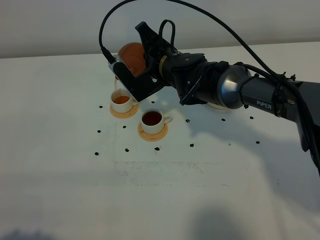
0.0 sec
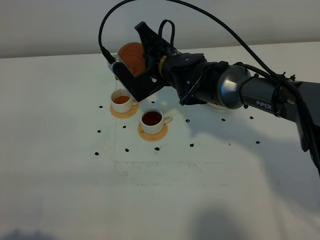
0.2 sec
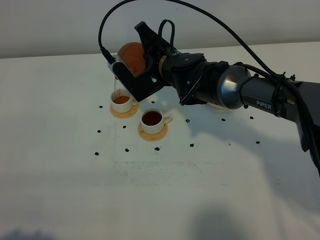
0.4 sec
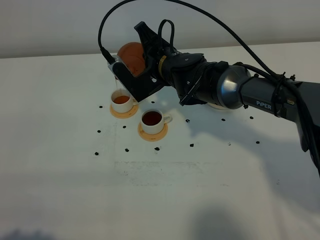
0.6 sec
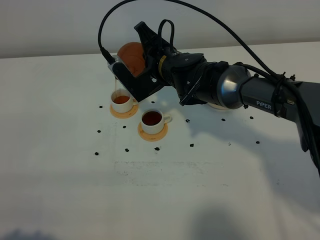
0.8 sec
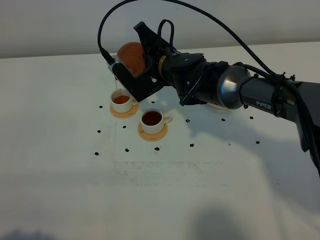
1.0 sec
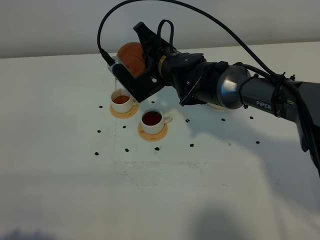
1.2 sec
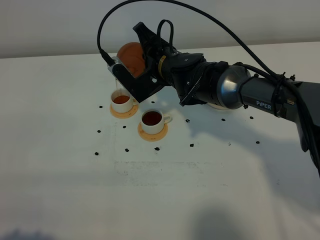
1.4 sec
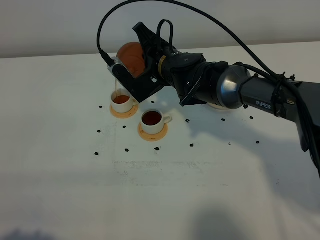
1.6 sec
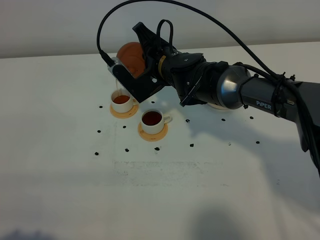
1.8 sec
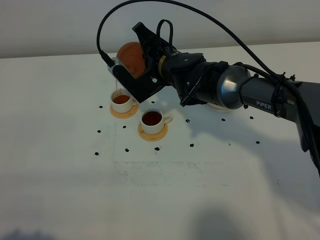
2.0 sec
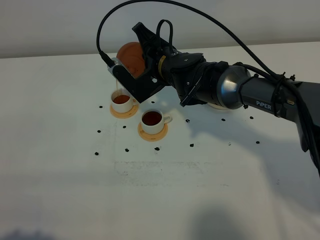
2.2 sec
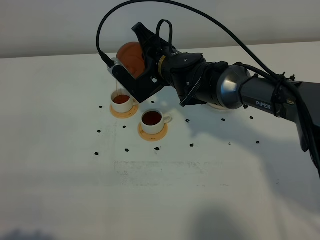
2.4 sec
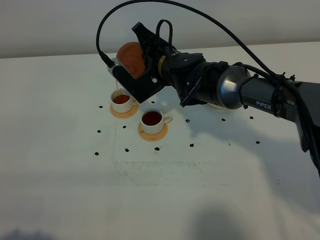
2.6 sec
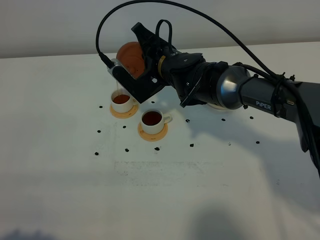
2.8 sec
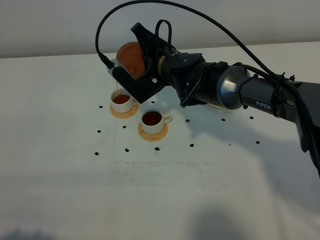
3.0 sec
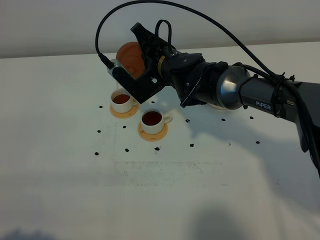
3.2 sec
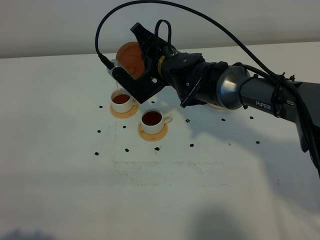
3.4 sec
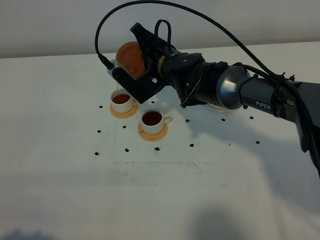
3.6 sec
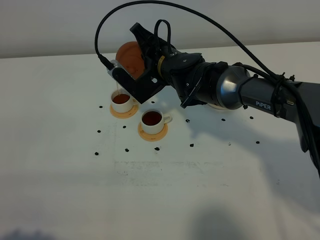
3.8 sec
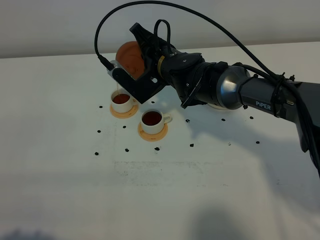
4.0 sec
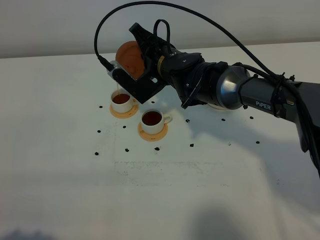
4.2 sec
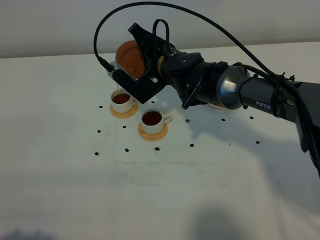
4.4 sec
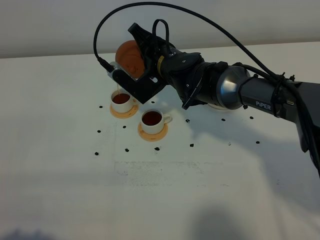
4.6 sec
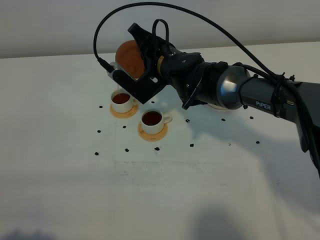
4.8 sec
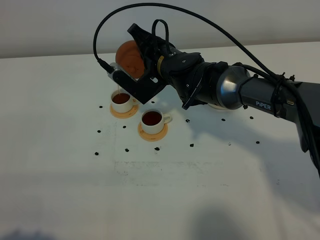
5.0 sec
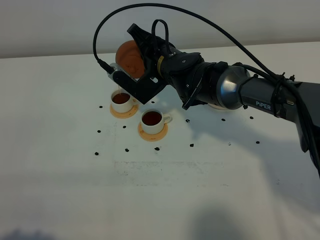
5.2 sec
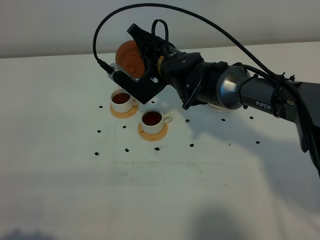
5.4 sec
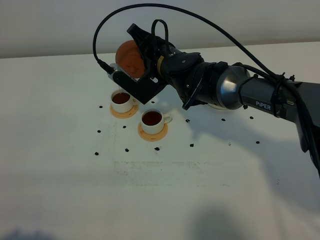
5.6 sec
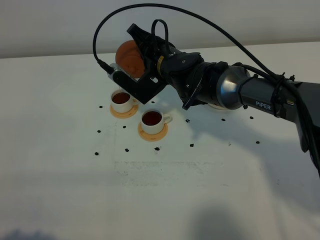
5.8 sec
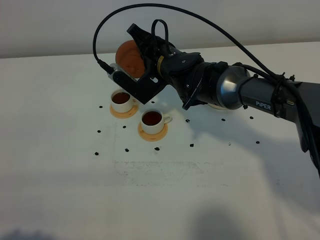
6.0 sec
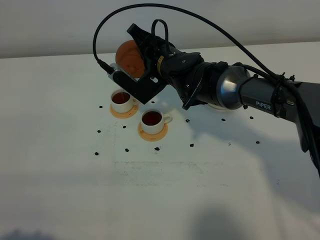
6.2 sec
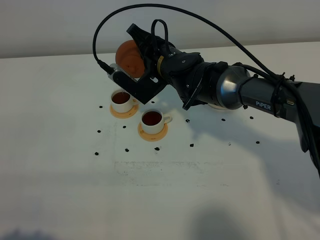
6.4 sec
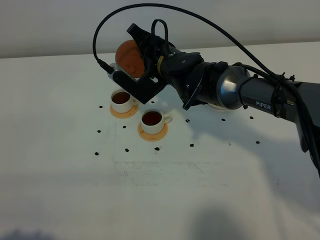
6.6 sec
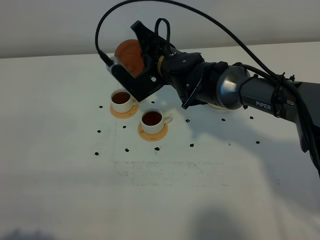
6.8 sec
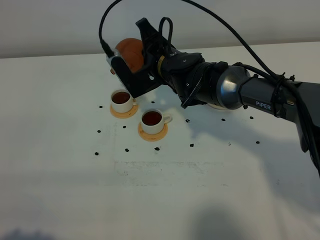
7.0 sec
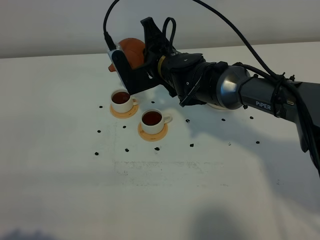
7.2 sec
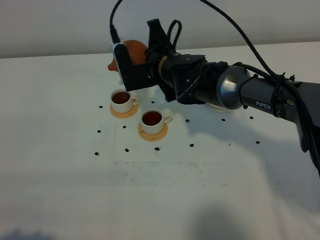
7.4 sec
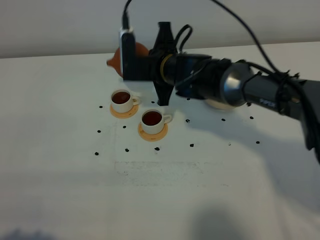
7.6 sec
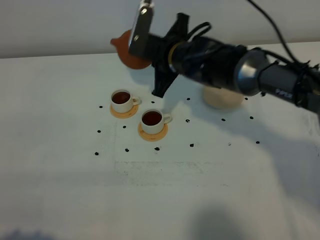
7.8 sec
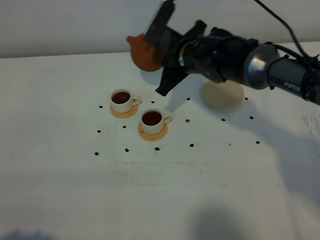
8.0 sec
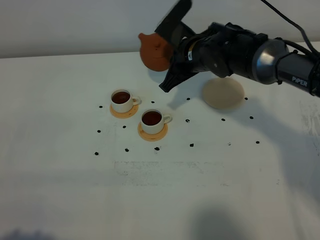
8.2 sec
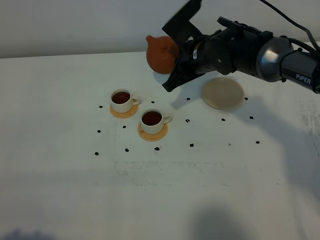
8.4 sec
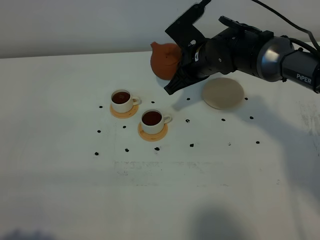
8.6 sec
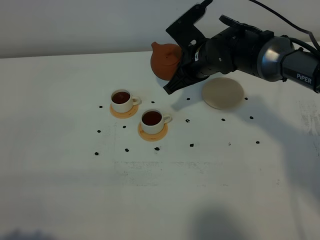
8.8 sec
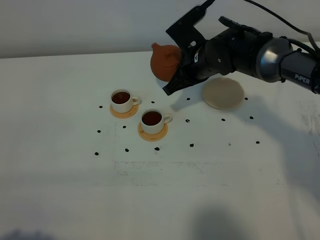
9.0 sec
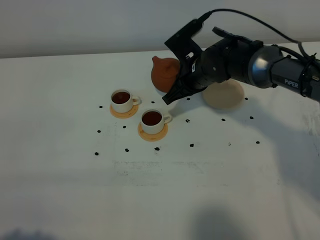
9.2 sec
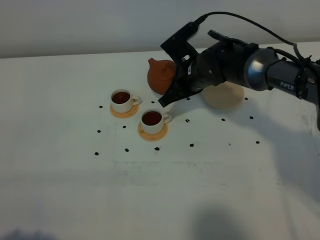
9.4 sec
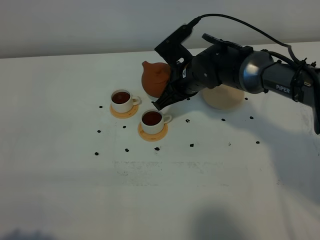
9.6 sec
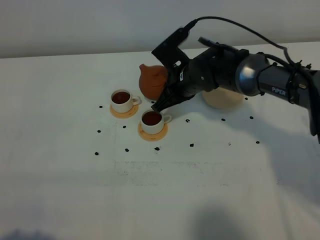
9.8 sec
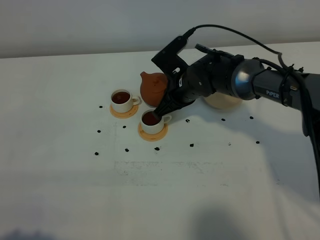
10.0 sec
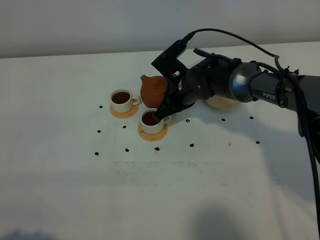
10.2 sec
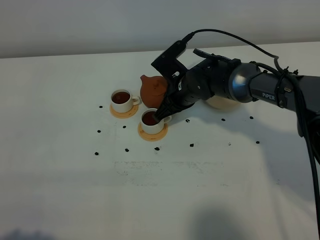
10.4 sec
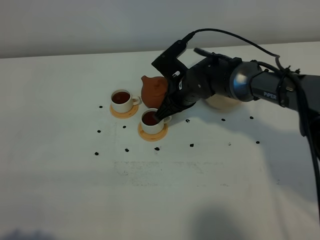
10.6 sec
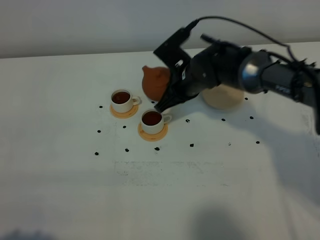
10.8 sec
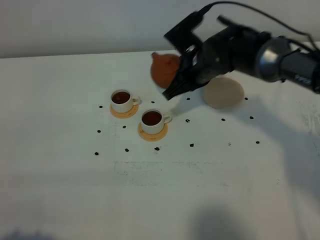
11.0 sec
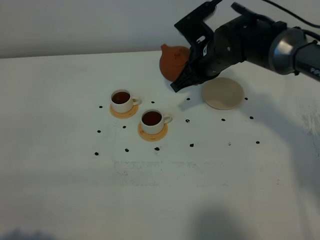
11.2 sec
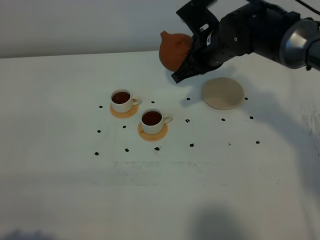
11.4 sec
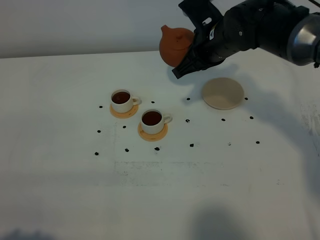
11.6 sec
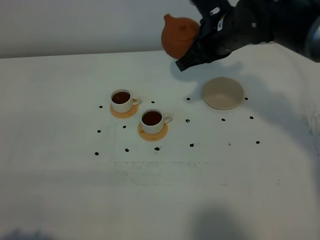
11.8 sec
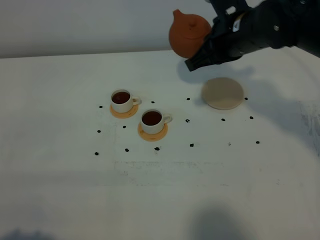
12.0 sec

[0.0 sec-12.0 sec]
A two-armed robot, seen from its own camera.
Task of the whole recording: grasp the brown teapot and pour the tea into the two white teacups one by one, put the brown teapot back in its original place.
Step, 0.0 sec to 7.6 sec: Pour tea into the teacup with the right gripper.
0.0 sec to 1.6 sec: The two grippers keep their place.
1.6 sec to 3.0 sec: Neither gripper changes place.
3.0 sec to 4.4 sec: The two grippers keep their place.
4.4 sec to 6.0 sec: Both grippers stay put.
7.6 sec to 9.0 sec: The right gripper heads to the right, covering some 5 cm.
9.0 sec to 10.4 sec: The right gripper is displaced downward by some 5 cm.
10.4 sec to 12.0 sec: The right gripper moves upward and to the right, about 20 cm.

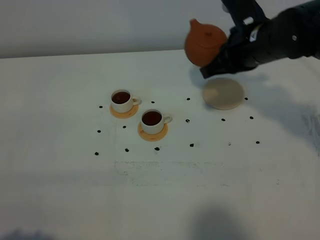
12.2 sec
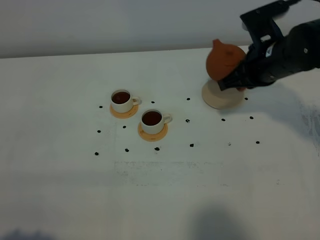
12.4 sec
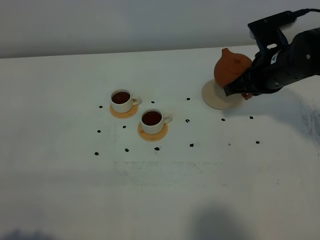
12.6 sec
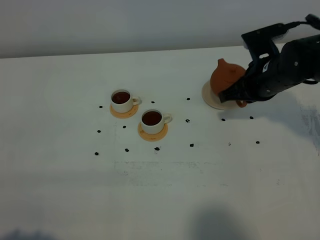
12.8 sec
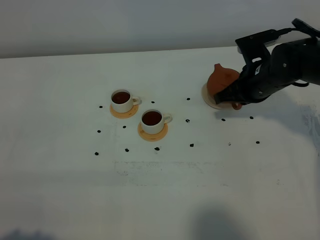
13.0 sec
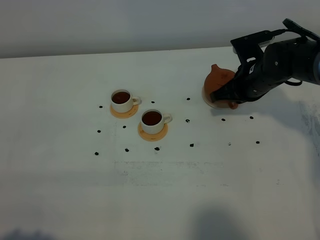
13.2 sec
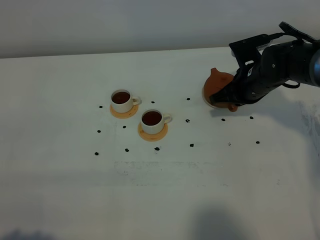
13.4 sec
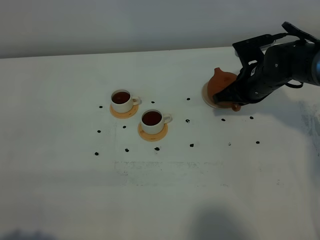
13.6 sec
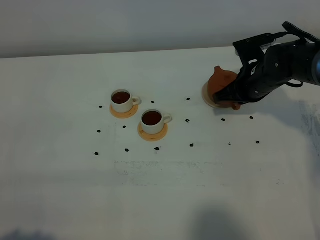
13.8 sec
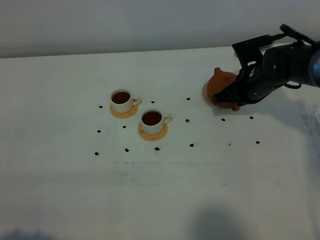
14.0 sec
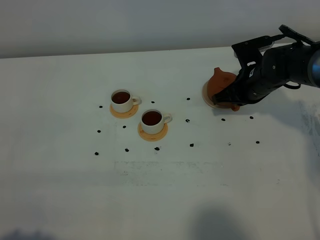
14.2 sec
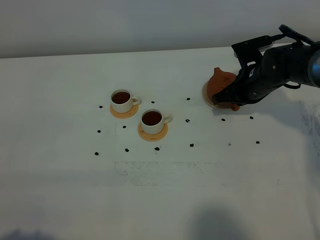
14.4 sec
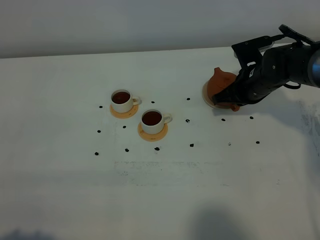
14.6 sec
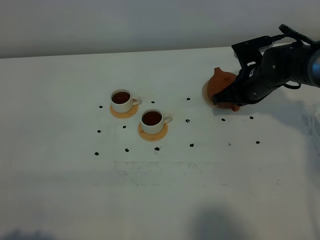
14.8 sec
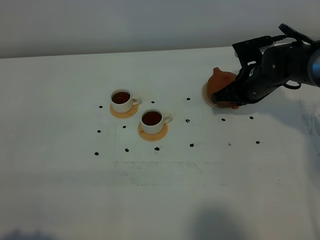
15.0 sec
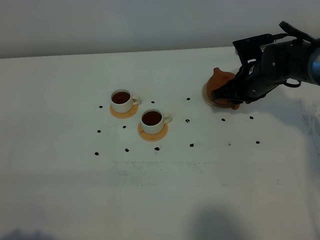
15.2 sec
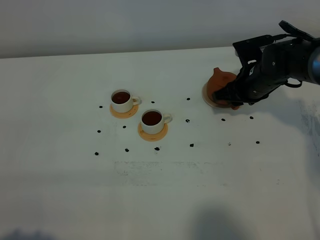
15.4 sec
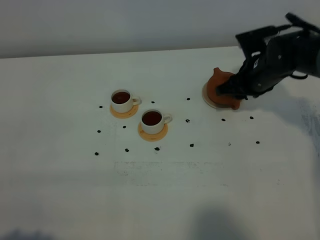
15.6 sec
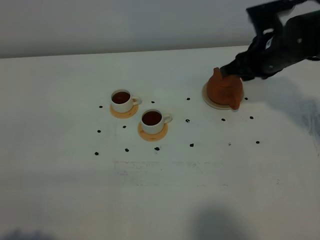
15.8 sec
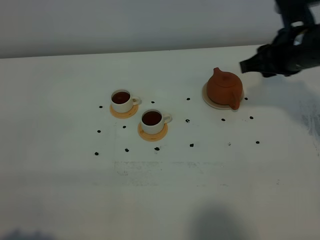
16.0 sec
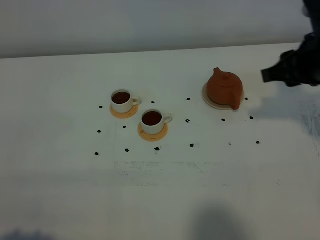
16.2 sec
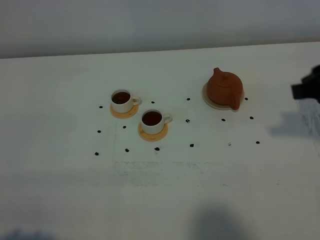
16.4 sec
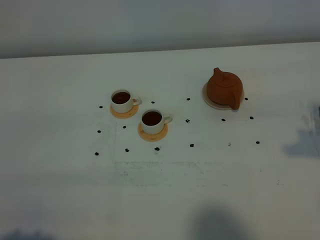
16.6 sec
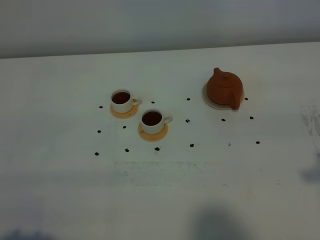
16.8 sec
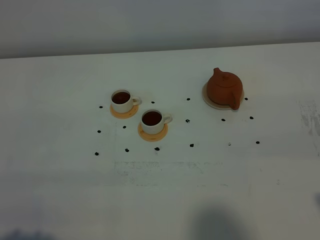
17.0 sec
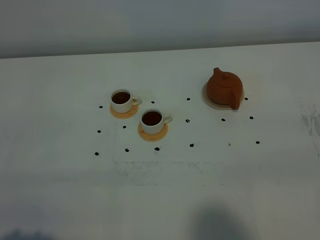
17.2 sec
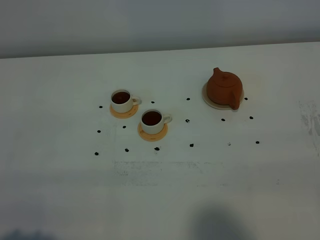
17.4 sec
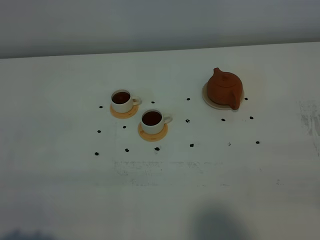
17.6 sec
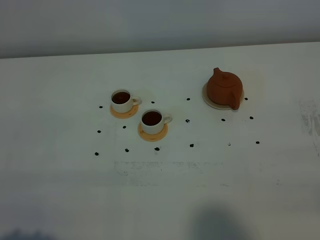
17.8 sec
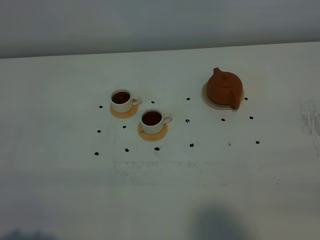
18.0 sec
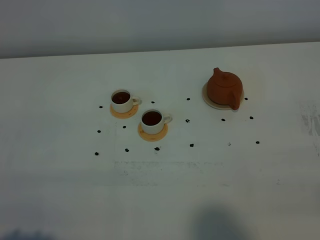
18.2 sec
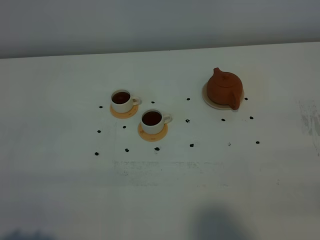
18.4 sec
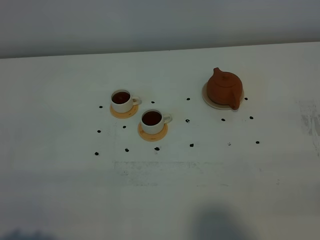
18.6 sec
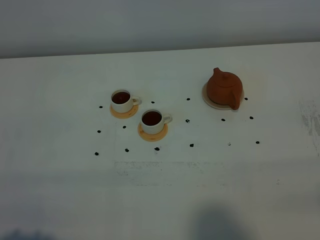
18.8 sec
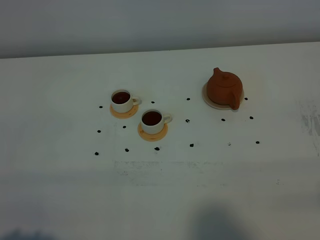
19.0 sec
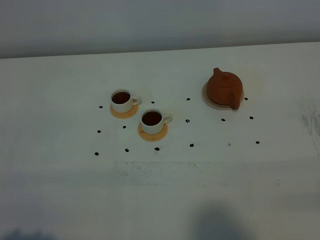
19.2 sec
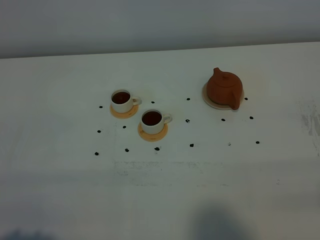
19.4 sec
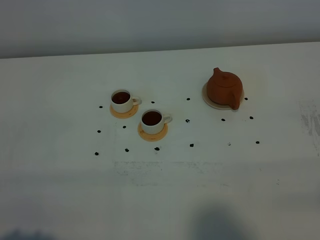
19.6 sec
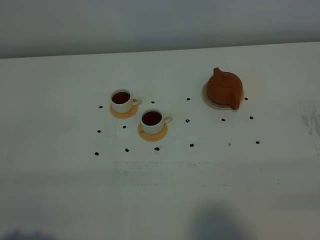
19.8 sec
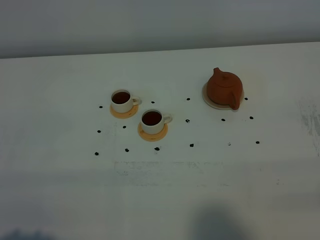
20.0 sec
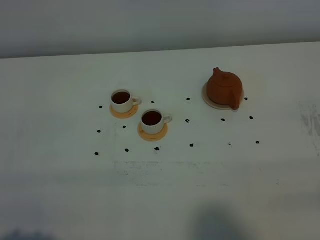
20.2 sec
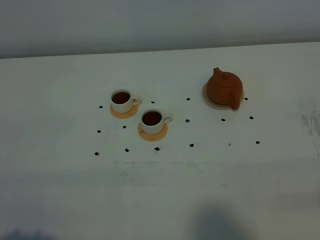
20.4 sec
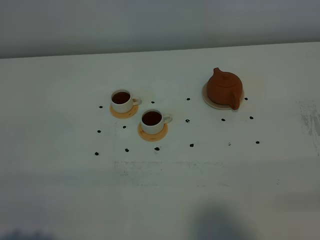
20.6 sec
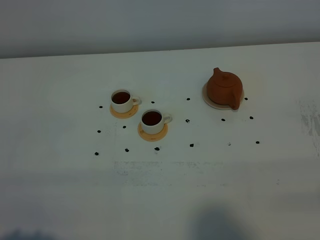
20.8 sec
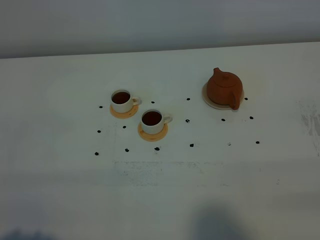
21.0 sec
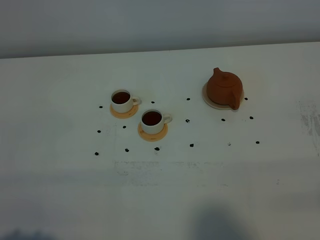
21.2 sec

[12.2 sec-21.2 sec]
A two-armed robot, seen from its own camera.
Task of the whole recording: grasp the brown teapot and pour the tea into the two white teacups one by one, put the brown teapot back in its original place.
12.2 sec to 13.8 sec: The right gripper goes about 10 cm downward.
13.8 sec to 15.2 sec: The right gripper opens up.
15.2 sec to 16.6 sec: The right gripper travels backward, upward and to the right by approximately 30 cm.
19.8 sec to 21.2 sec: Both grippers stay about where they are.
